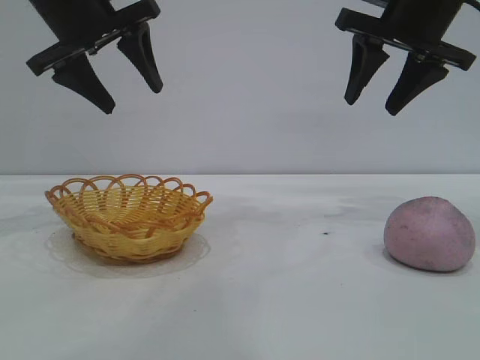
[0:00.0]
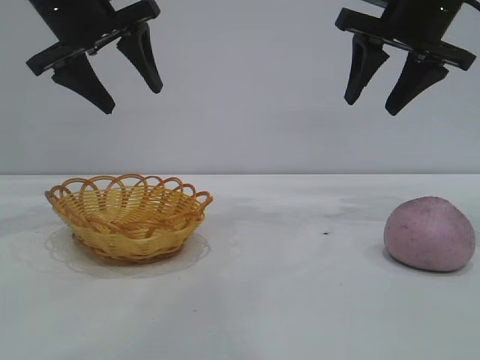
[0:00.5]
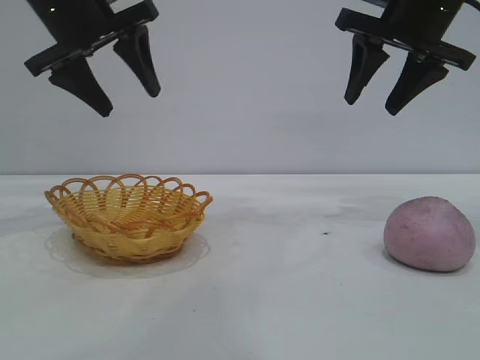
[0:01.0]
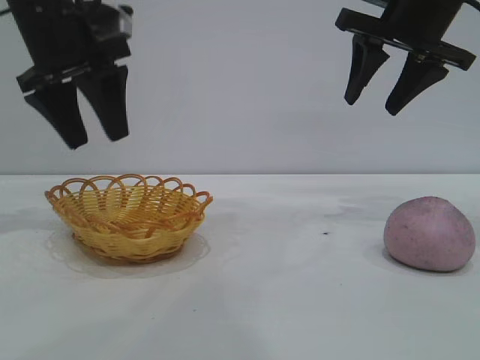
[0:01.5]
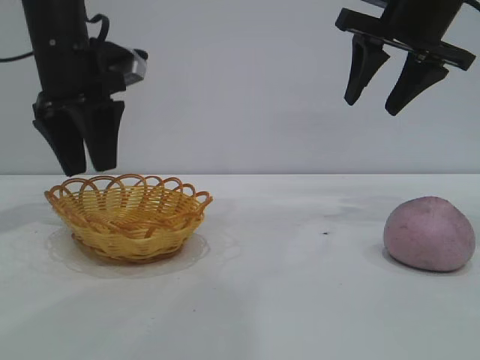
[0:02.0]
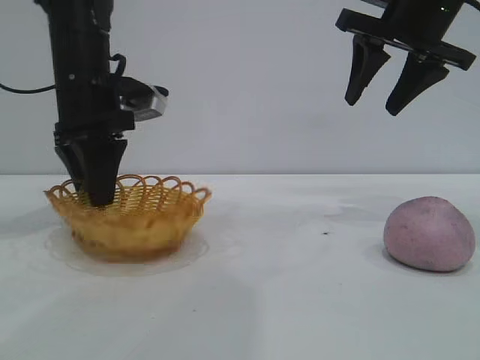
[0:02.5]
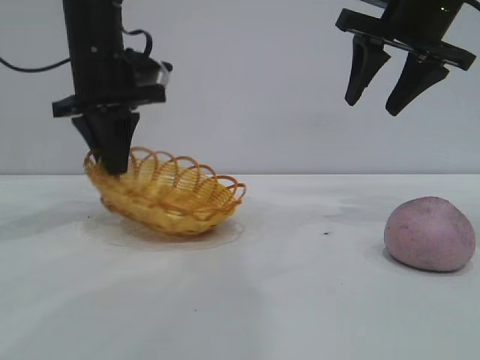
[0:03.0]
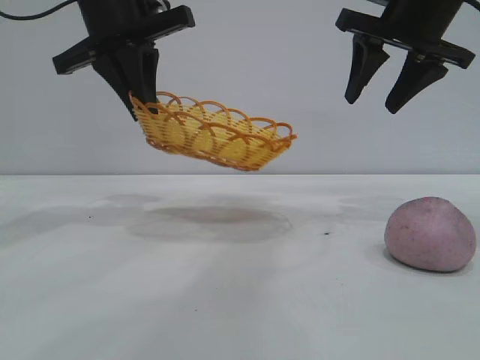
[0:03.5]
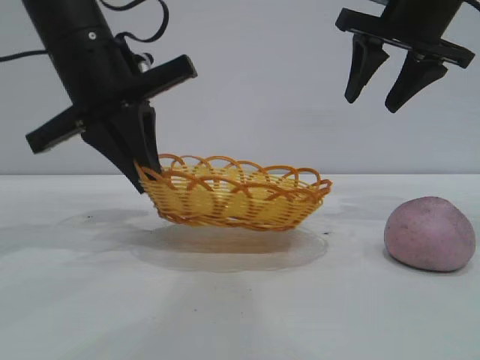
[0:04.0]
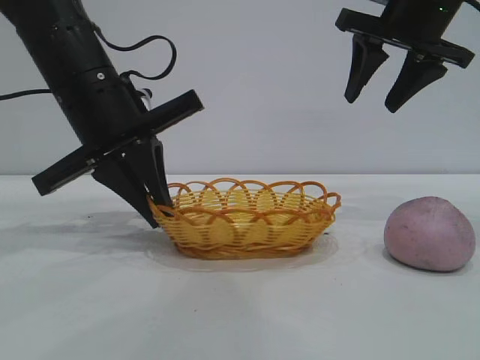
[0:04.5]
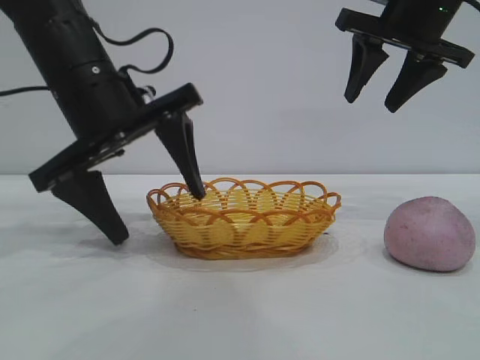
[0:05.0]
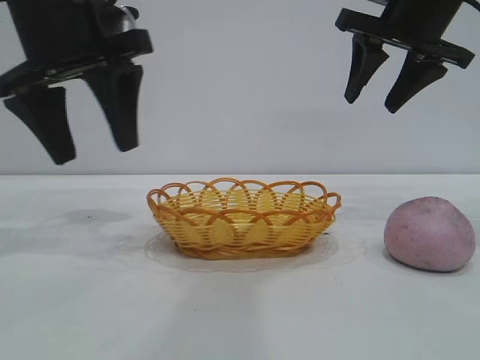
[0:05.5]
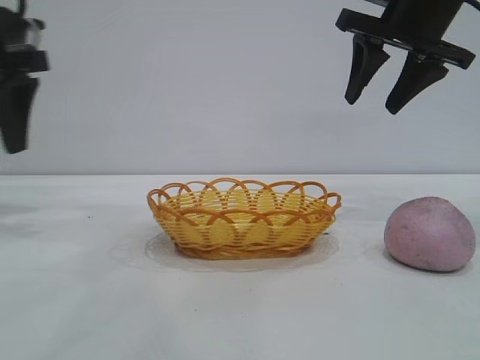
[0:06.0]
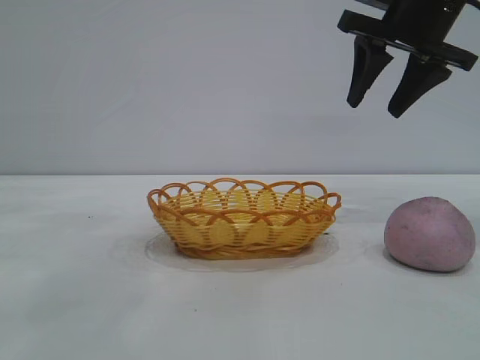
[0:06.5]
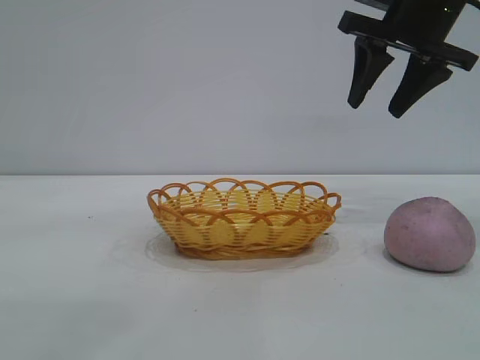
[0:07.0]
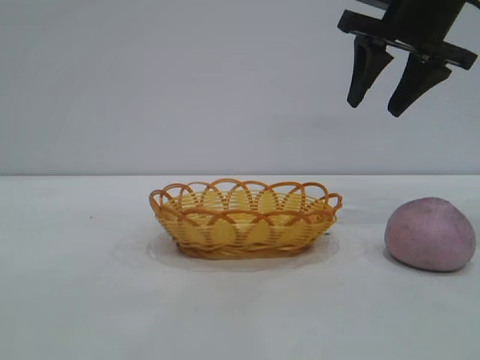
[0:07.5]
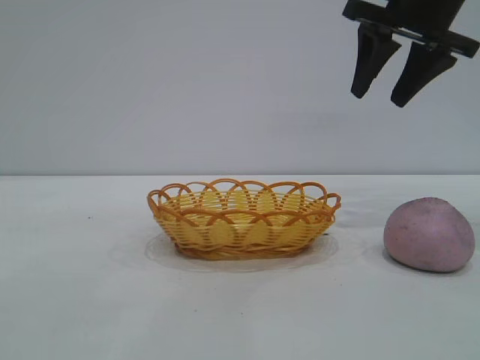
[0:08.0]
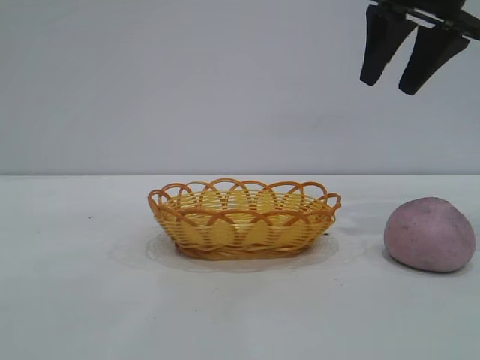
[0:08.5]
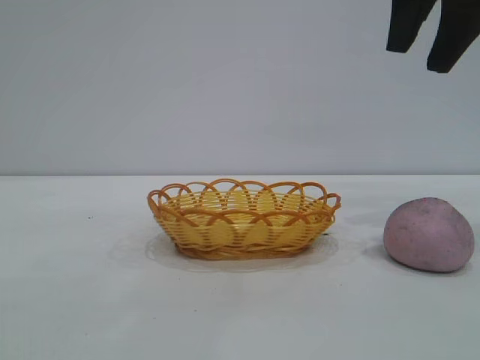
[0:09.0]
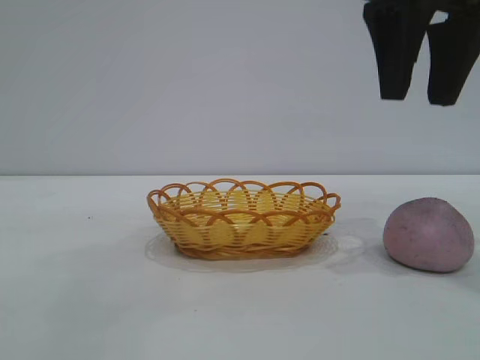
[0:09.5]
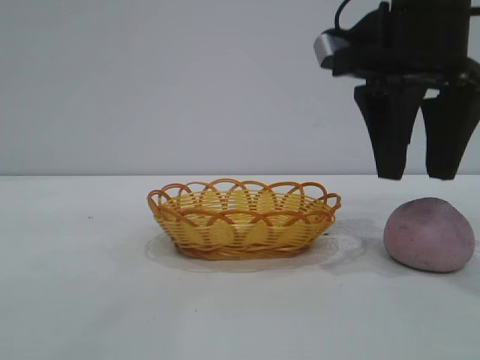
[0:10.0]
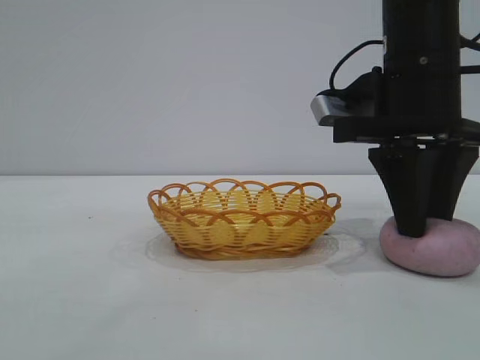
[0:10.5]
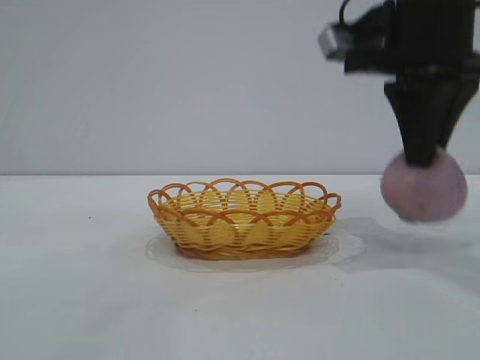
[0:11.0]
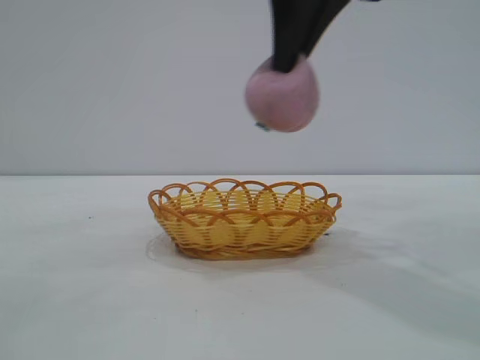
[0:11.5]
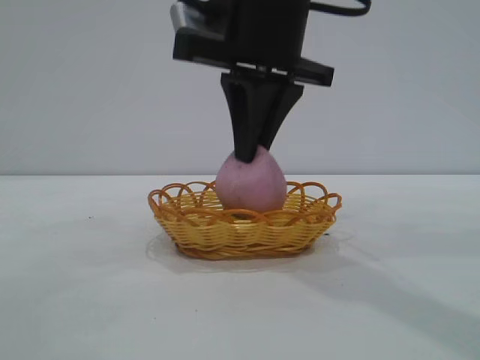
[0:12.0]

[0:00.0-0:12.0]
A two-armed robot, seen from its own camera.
Task of the whole recording: pick up the peach and put it into the basket.
Step, 0:00.0 to 0:05.0: Move the basket to the center of view.
Step, 0:05.5 to 0:11.0: Pick up the peach.

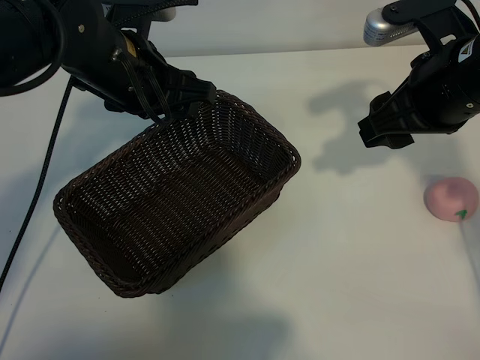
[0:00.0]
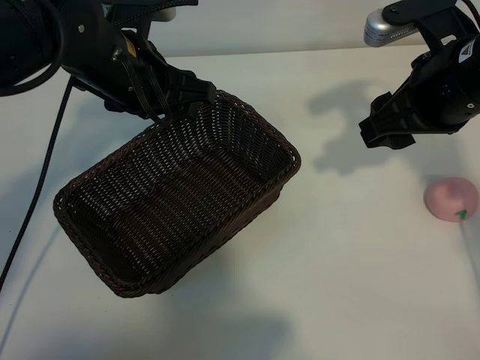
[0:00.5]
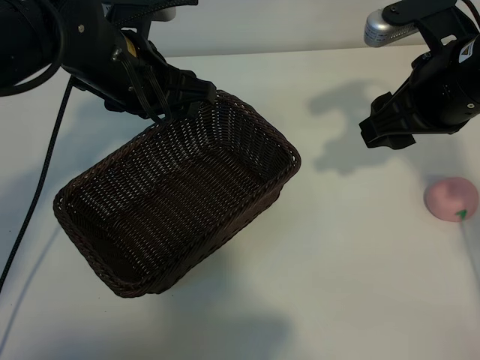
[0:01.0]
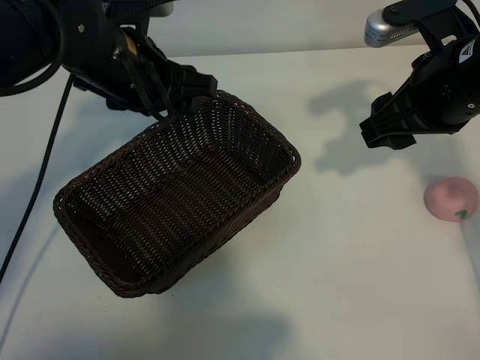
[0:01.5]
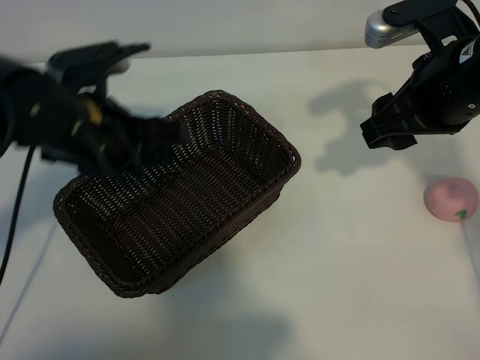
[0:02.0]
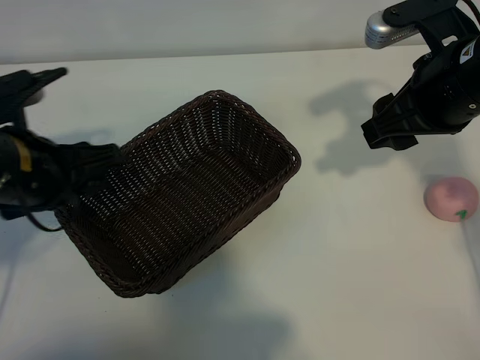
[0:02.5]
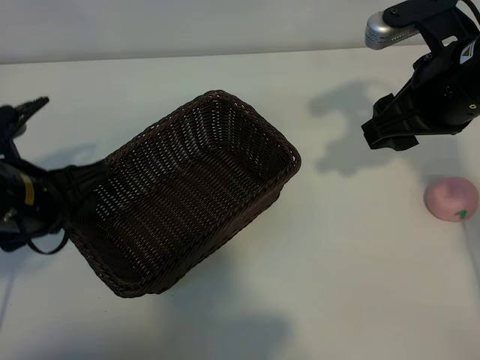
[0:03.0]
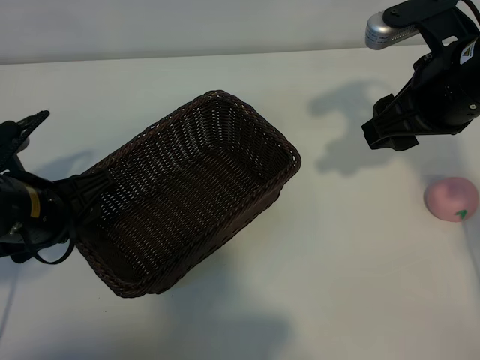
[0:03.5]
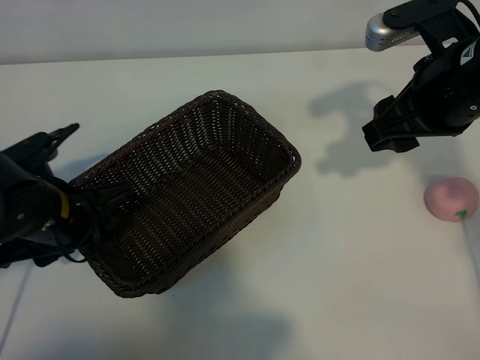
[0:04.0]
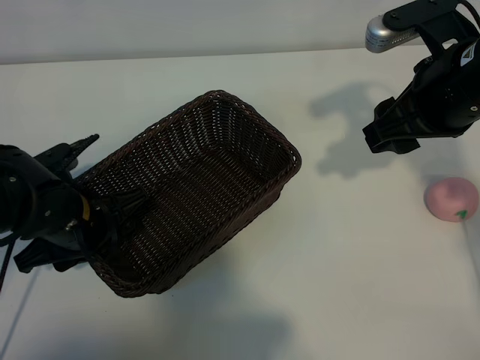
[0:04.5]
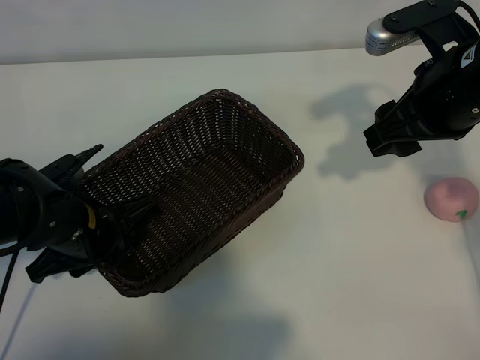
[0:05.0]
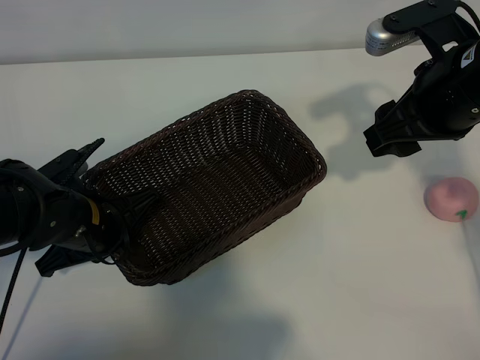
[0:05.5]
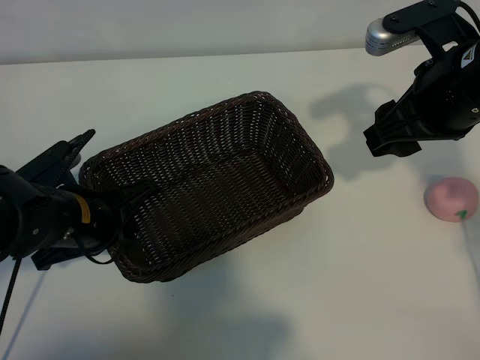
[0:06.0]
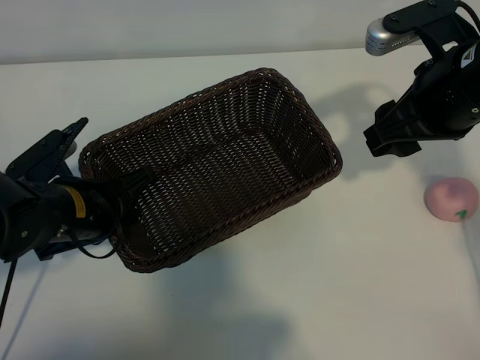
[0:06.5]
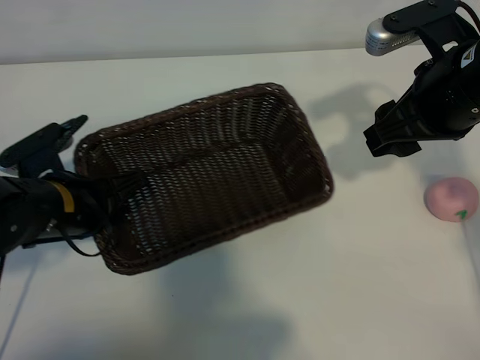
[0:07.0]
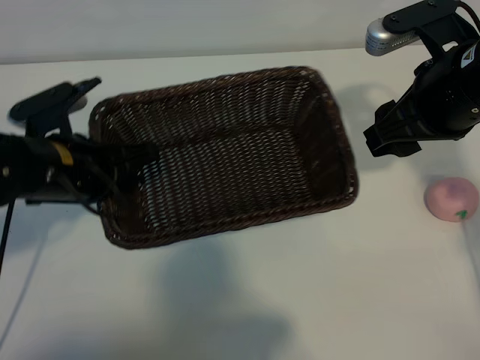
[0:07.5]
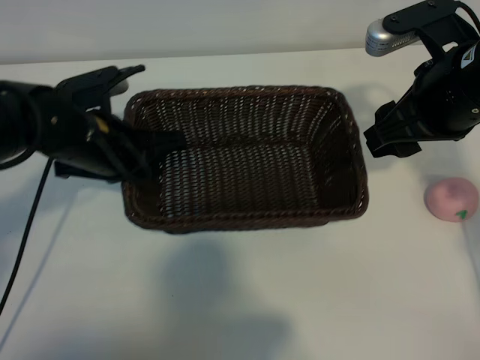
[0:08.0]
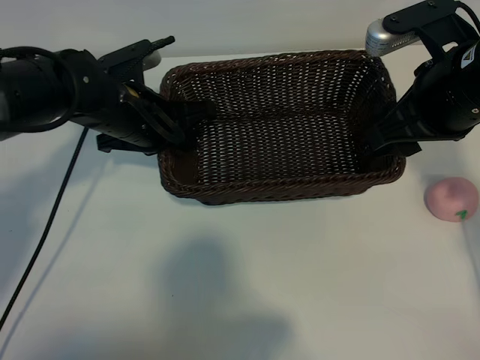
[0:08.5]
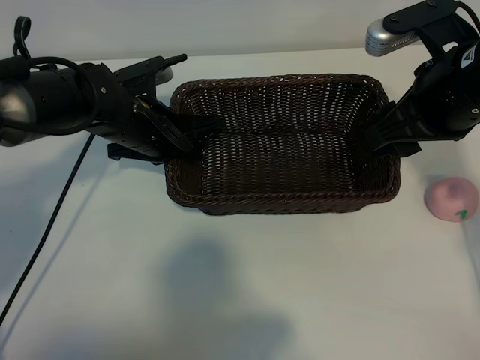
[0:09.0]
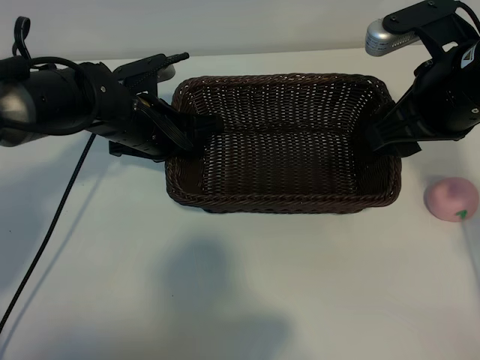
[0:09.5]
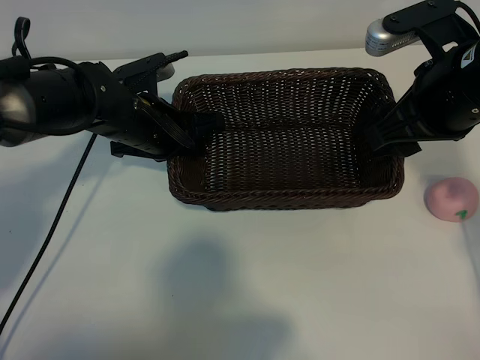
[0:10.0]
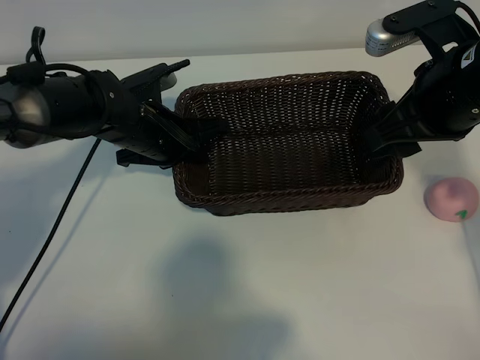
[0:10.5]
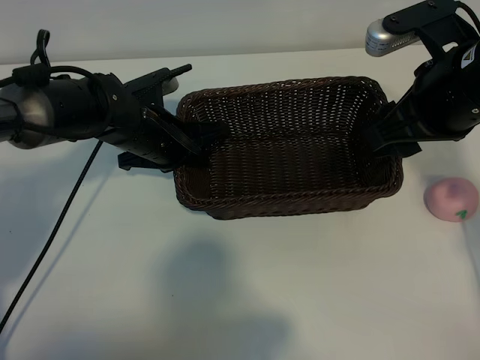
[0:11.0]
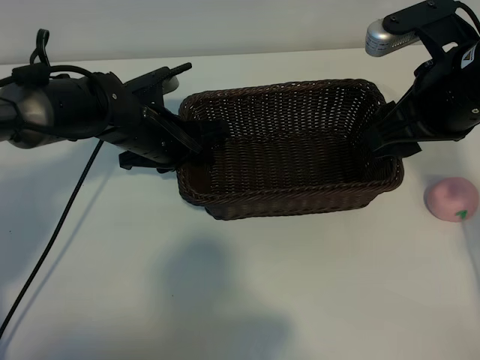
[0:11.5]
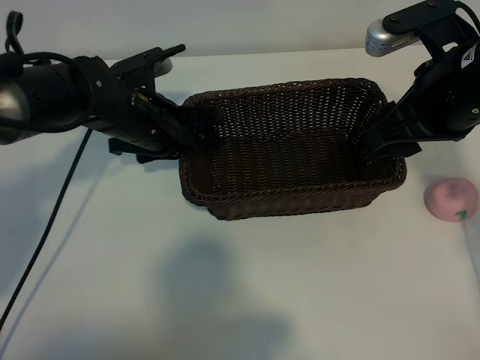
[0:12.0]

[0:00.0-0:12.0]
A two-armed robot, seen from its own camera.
Task of the whole recording: pick up the peach and put it into the basket.
Step, 0:01.5 to 0:05.0: Grasp the basket with left gripper.

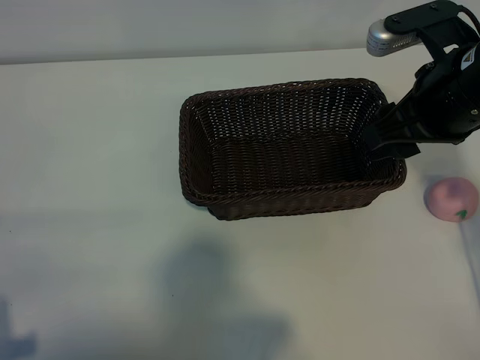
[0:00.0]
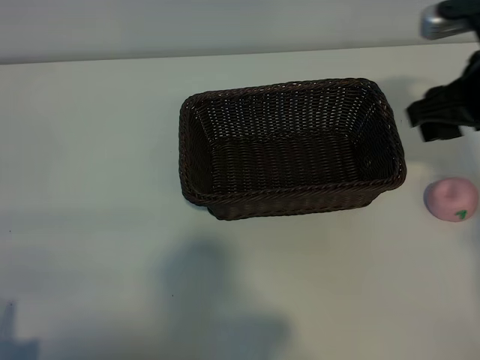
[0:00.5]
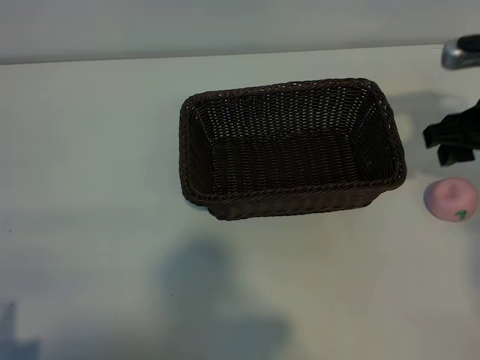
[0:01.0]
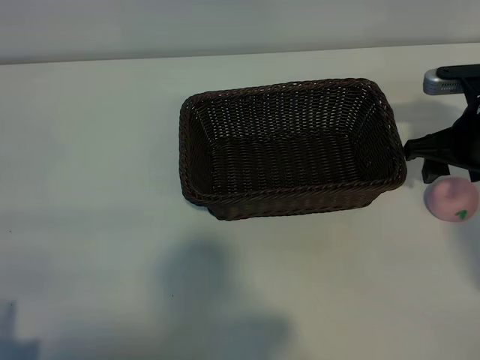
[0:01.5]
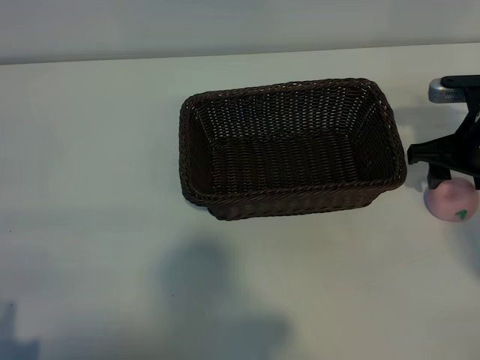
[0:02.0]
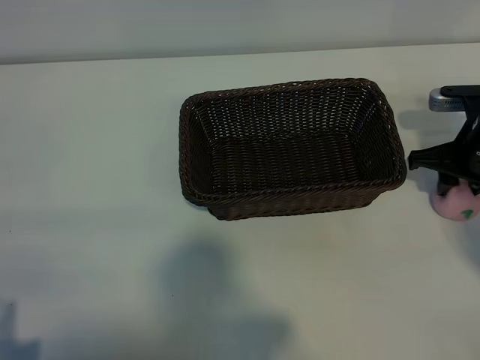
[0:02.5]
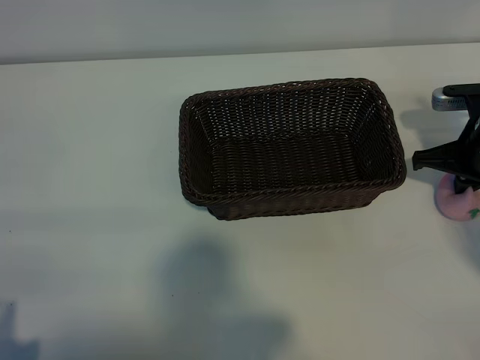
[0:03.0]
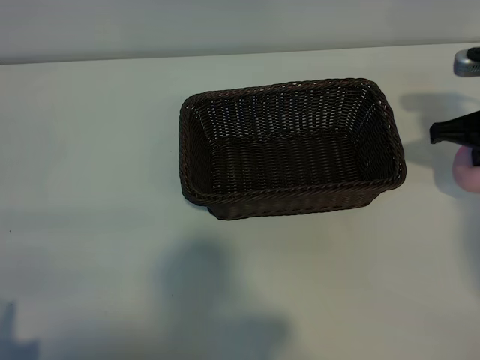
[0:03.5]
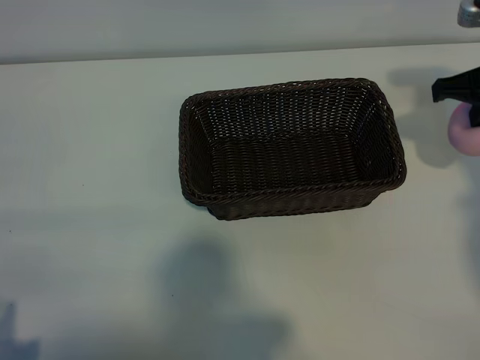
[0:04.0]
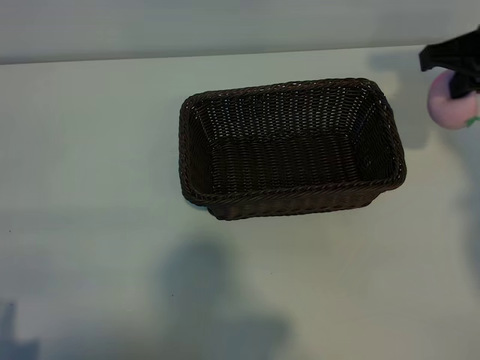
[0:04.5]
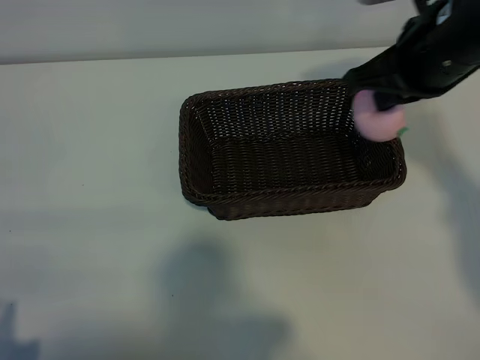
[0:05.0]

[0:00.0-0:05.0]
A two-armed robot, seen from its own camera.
Task of the whole recording: pick up the peach and put it into the basket.
Step, 0:00.0 to 0:02.5: Grasp the peach with right gripper.
